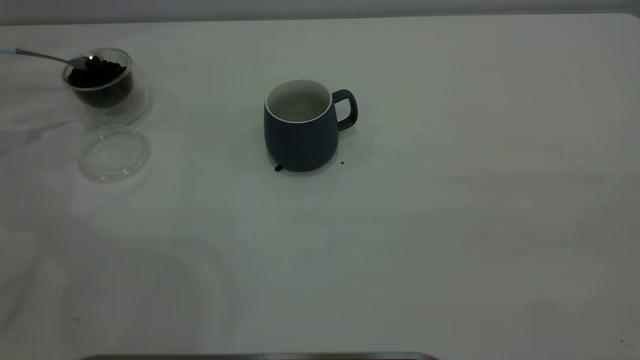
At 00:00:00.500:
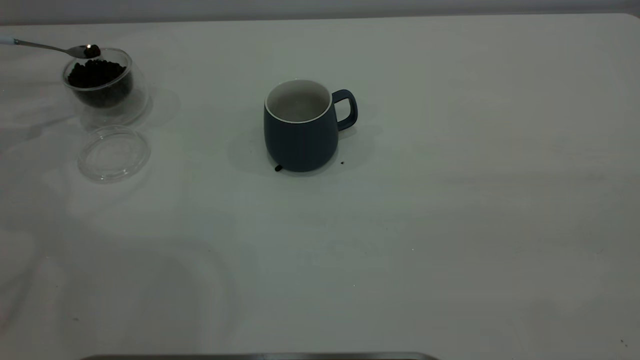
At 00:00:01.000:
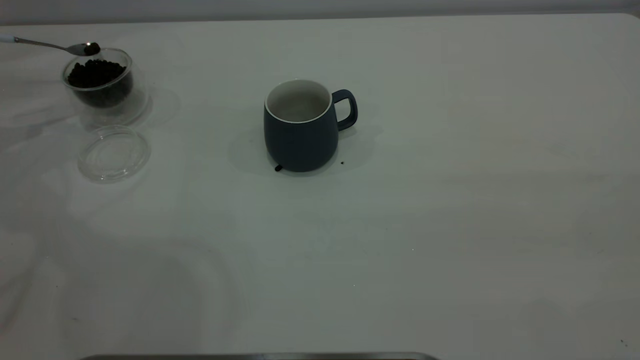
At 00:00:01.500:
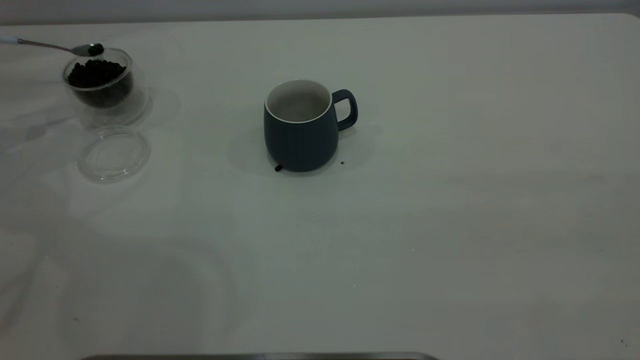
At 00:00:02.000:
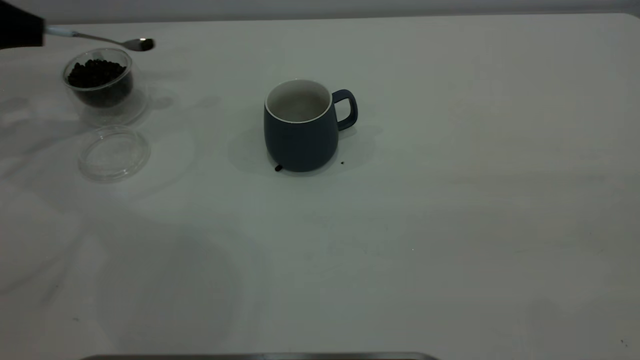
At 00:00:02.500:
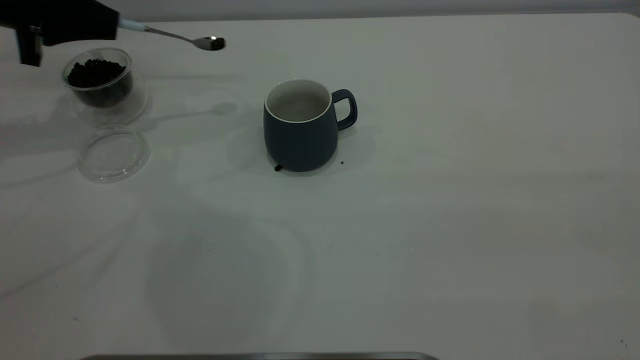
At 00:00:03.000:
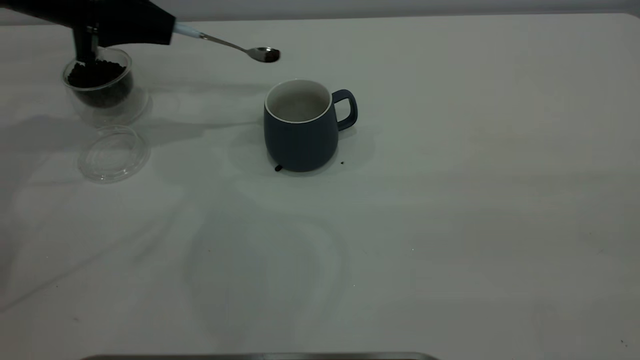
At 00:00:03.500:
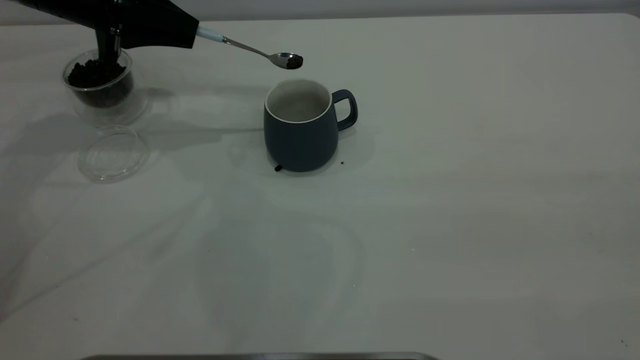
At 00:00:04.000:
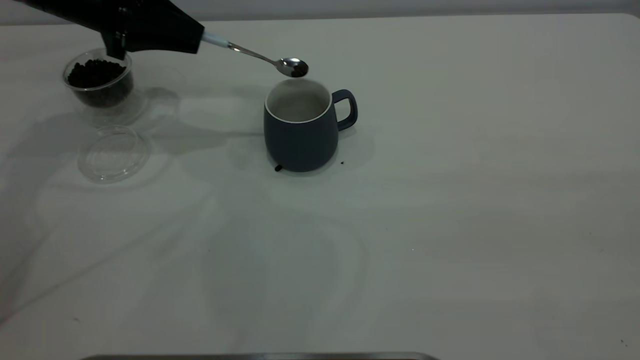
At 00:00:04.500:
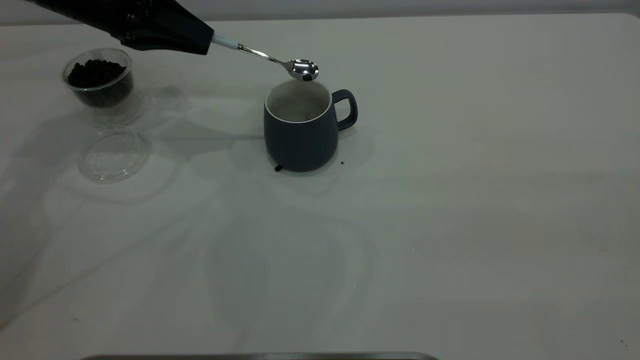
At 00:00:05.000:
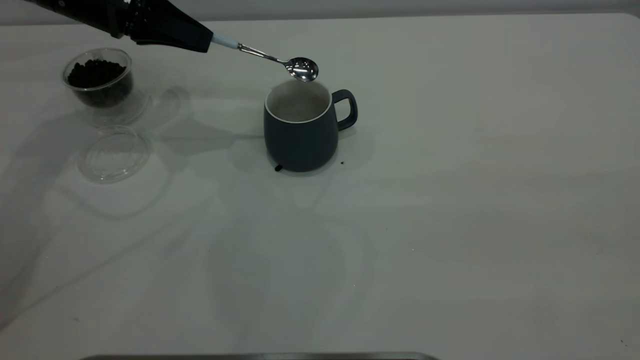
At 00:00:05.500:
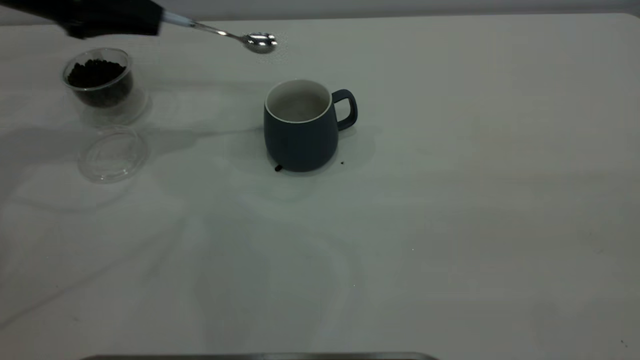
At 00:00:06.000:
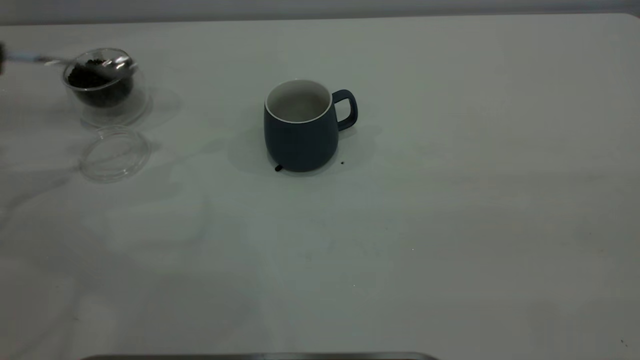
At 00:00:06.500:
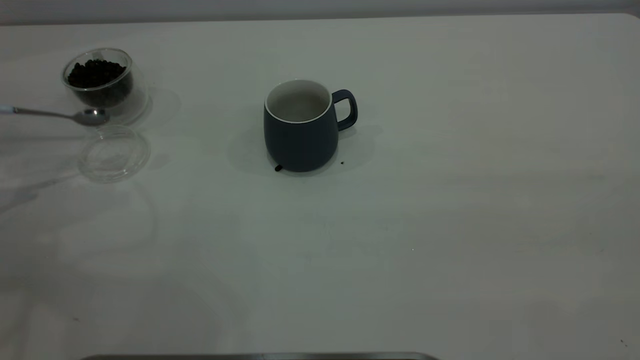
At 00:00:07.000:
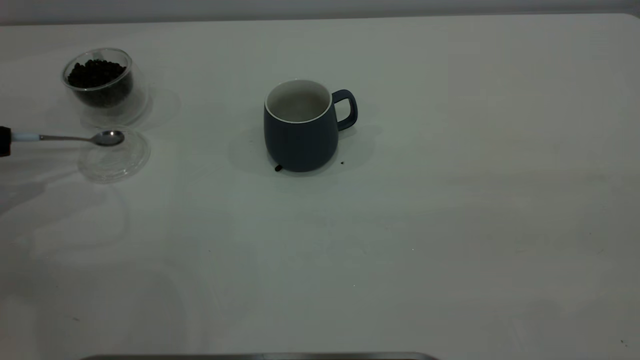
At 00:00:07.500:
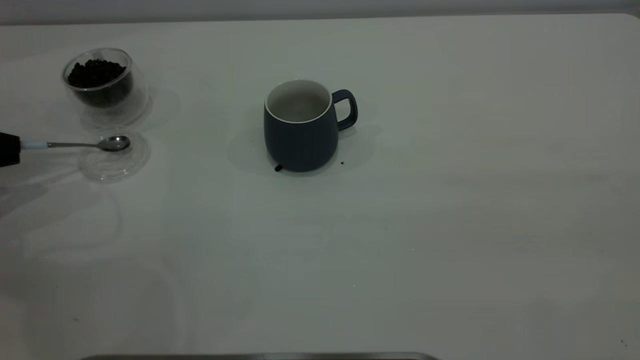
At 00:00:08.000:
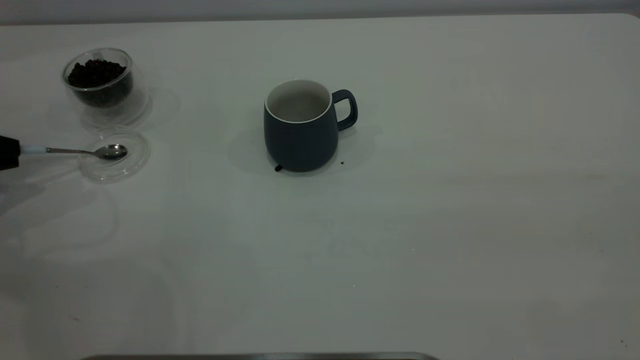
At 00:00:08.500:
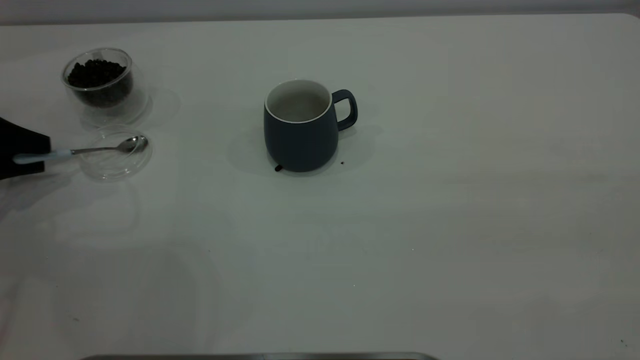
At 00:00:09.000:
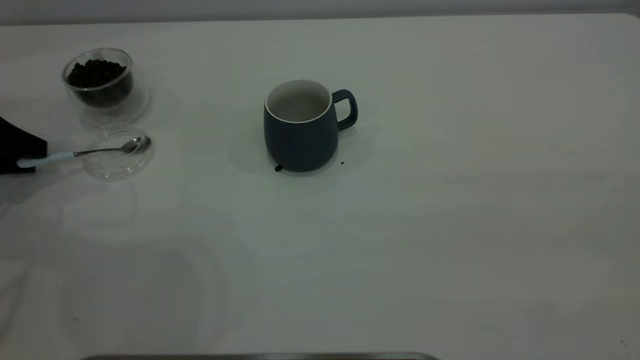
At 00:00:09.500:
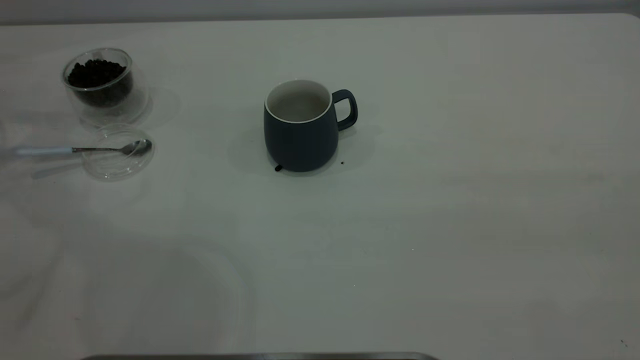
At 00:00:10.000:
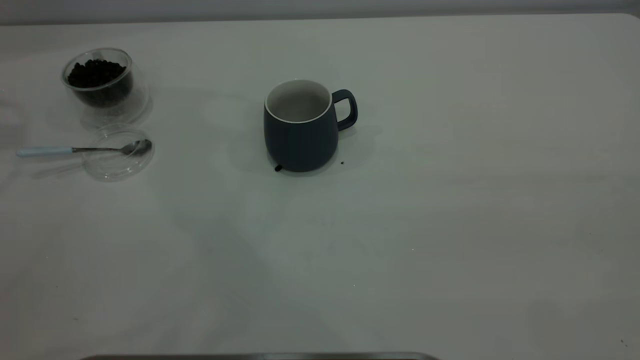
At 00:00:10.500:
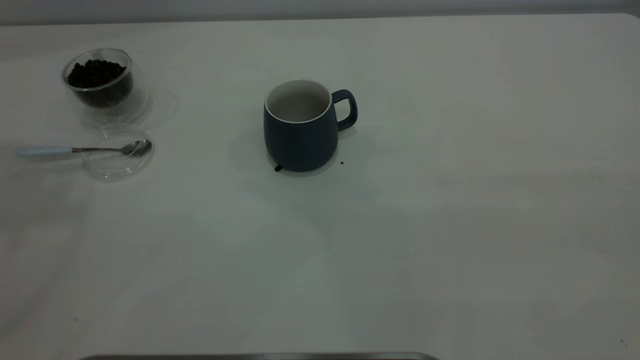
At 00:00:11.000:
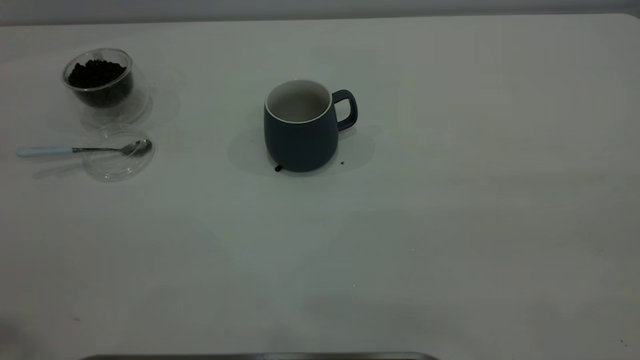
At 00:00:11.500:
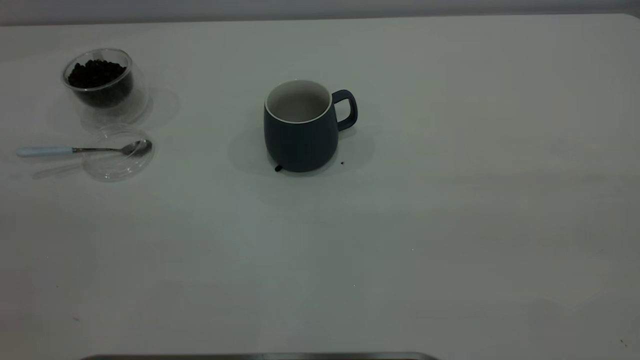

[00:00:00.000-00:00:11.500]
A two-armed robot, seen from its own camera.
Task of the whole recording: the right gripper place the grey cup in the center of the table, the left gripper take the blue spoon from the cup lid and scoop out the coffee beans from the coffee cup and put them into the grey cup, the left gripper put the spoon back into the cup lid.
Step, 00:00:00.000 to 00:00:05.000: Scoop a spoonful of beans into the cup.
Step, 00:00:05.500 to 00:00:09.500: Place the spoon back in its original place.
00:00:00.000 to 00:00:02.000: The left gripper is displaced to the right by approximately 5 cm.
00:00:02.000 to 00:00:04.000: The left gripper shifts approximately 15 cm to the right.
00:00:04.000 to 00:00:06.000: The left gripper shifts about 20 cm to the left and backward.
00:00:06.000 to 00:00:07.500: The left gripper goes about 10 cm downward.
00:00:07.500 to 00:00:09.500: The left gripper shifts some 15 cm upward and forward, and opens its fingers.

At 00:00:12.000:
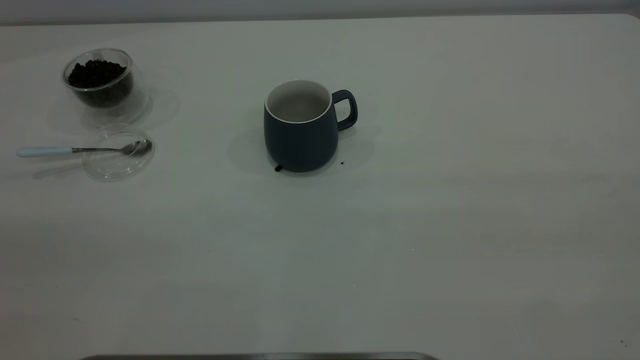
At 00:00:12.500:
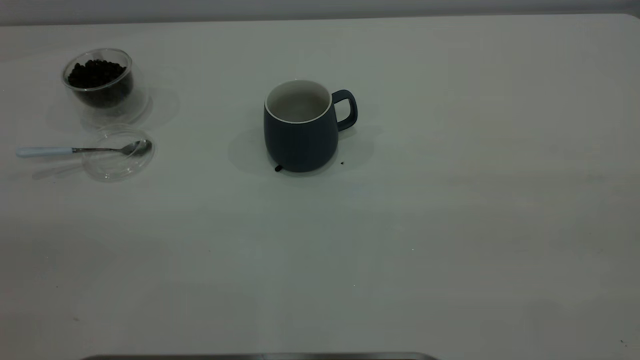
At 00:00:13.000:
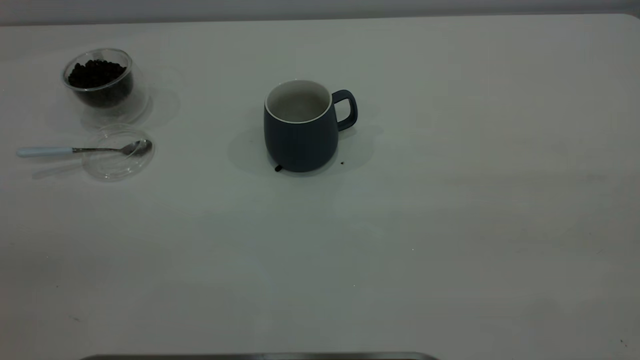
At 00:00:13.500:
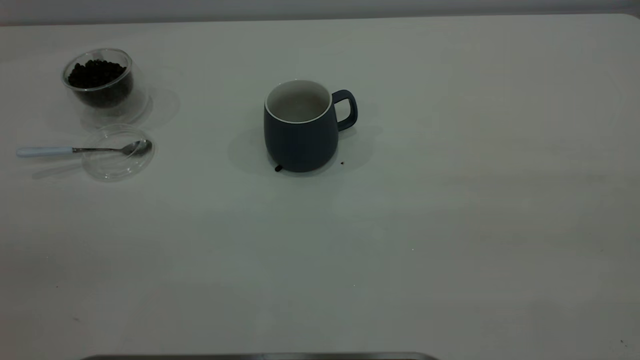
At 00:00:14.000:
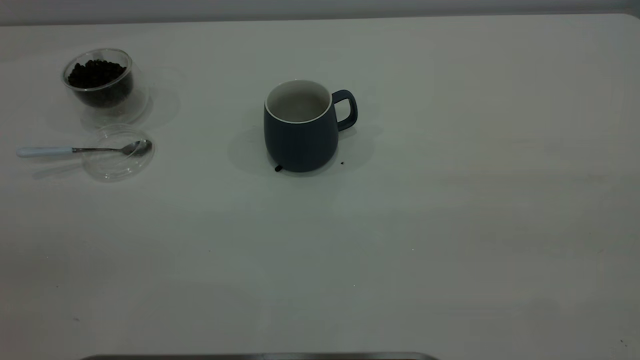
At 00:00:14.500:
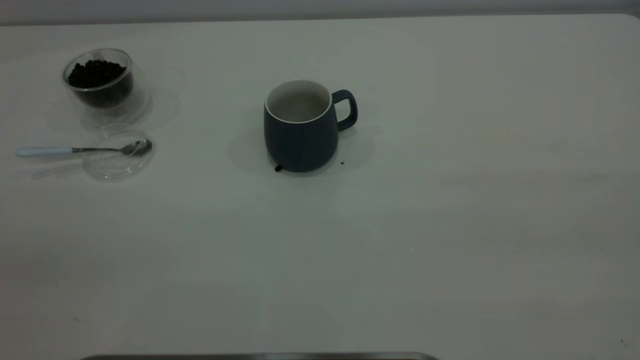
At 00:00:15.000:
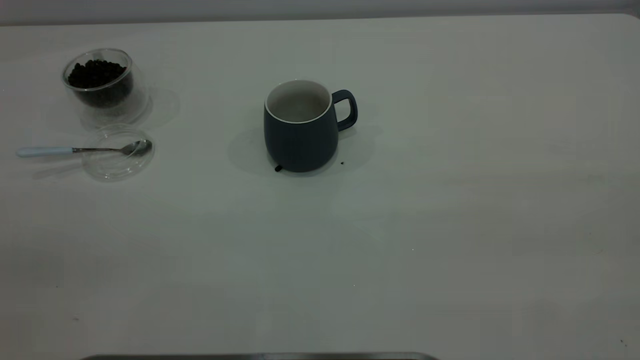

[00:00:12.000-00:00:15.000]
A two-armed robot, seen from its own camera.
Task of the whole recording: the right gripper place the grey cup in the center of the table, the left gripper take the blue spoon from the cup lid and scoop out the coffee beans from the coffee cup and put them into the grey cup, the left gripper put the spoon back into the cup lid.
00:00:13.500 to 00:00:15.000: Both grippers stay about where they are.
